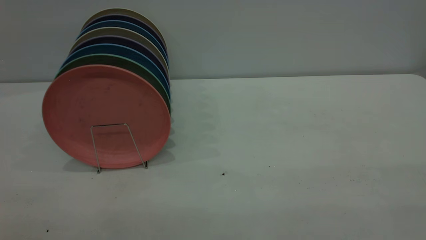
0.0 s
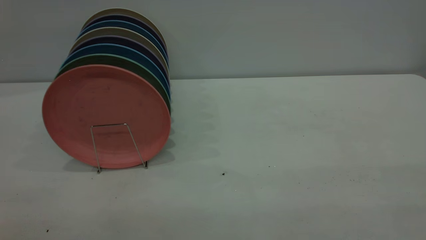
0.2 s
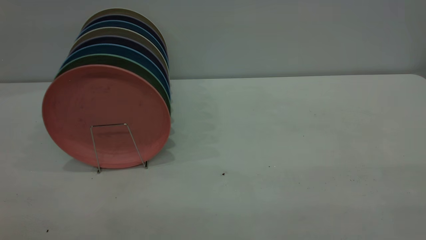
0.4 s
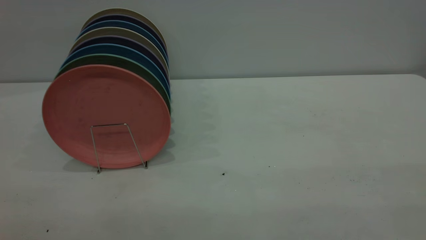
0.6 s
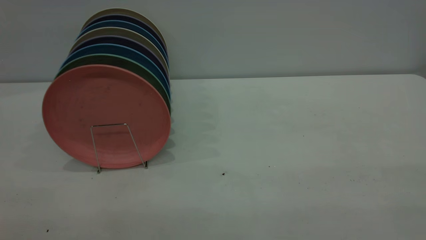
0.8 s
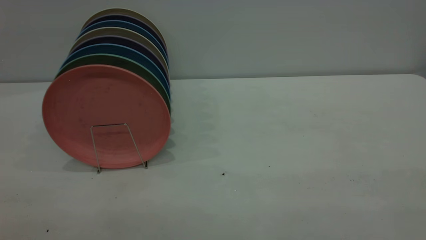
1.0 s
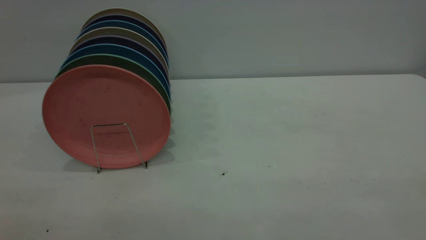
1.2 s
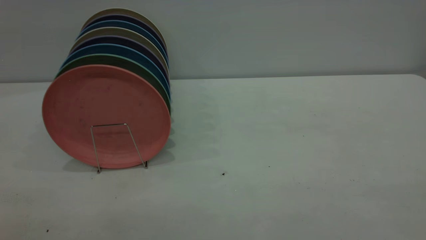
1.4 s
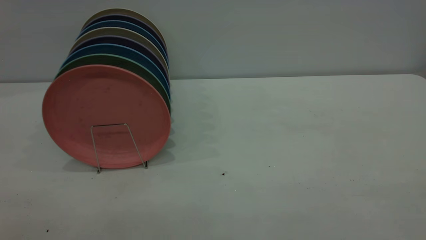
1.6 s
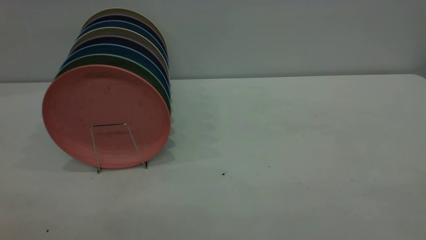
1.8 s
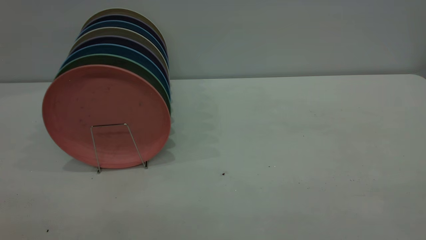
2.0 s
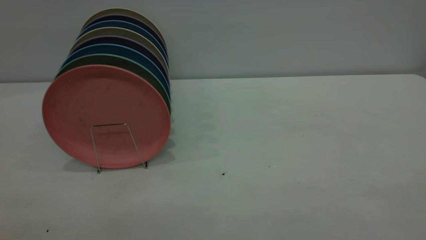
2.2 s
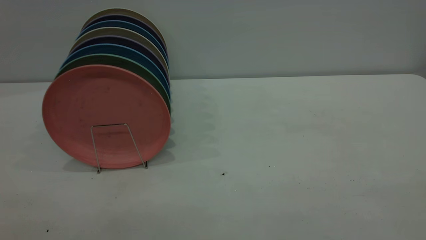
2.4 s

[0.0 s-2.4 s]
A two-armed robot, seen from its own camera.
Task of the whole recording: the right gripper grasp the pink plate, the right gripper pass the pink plate to the left gripper, and the left gripper place the pink plate on the plate rack.
1.2 to 2.4 s: The two grippers keep their place.

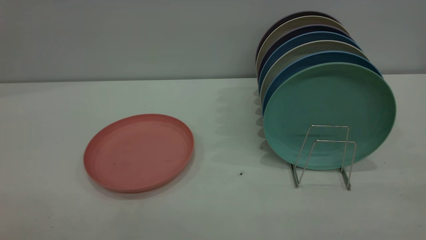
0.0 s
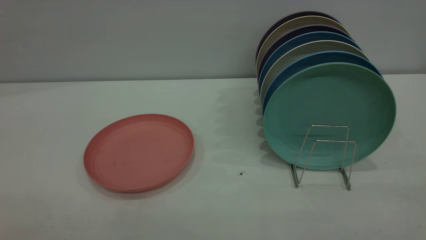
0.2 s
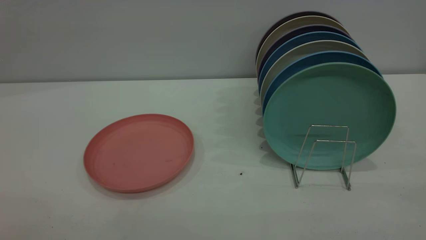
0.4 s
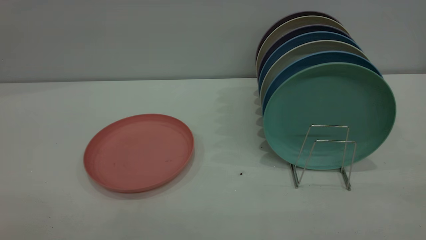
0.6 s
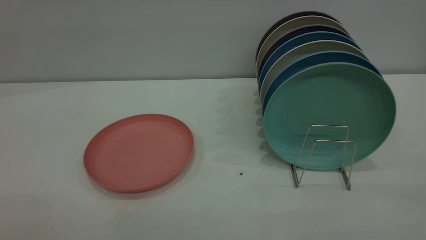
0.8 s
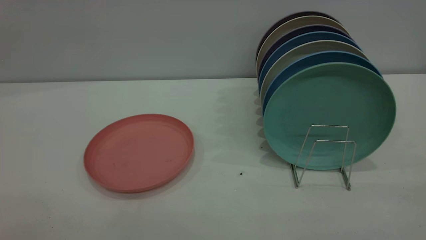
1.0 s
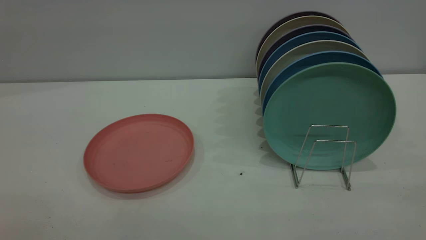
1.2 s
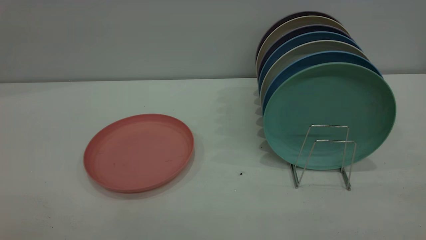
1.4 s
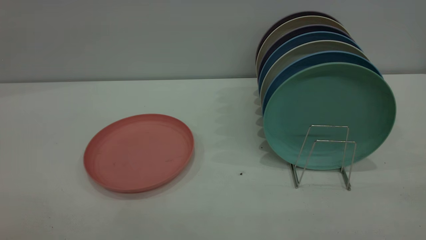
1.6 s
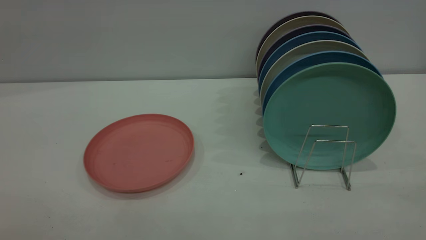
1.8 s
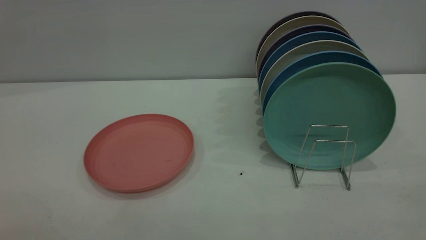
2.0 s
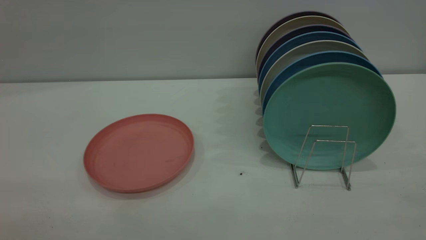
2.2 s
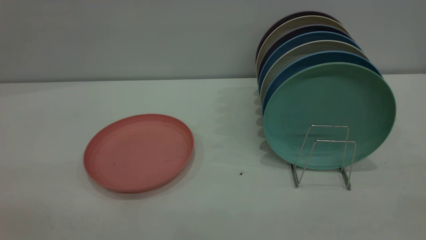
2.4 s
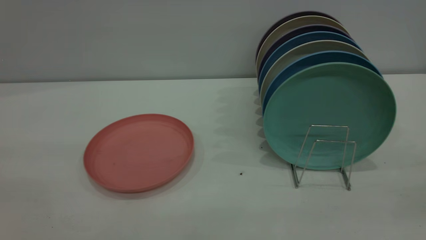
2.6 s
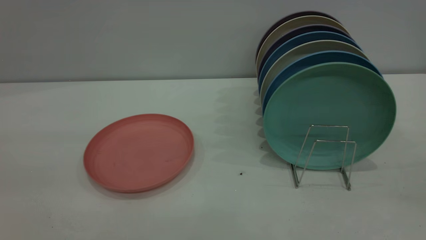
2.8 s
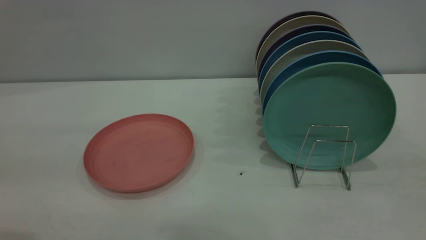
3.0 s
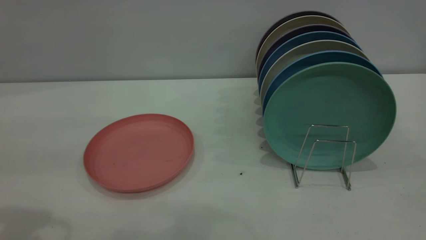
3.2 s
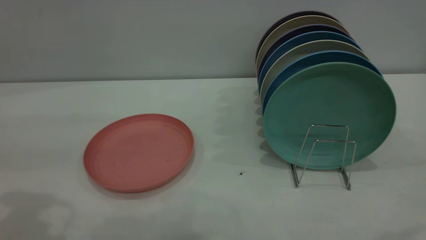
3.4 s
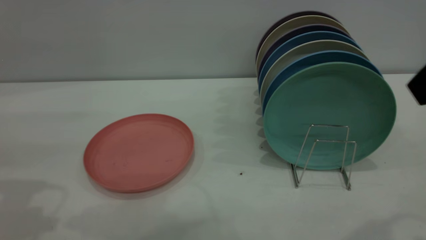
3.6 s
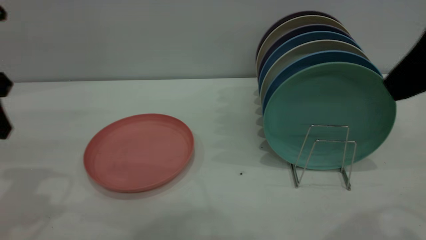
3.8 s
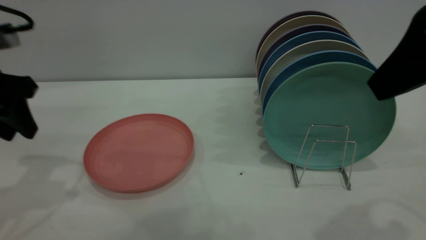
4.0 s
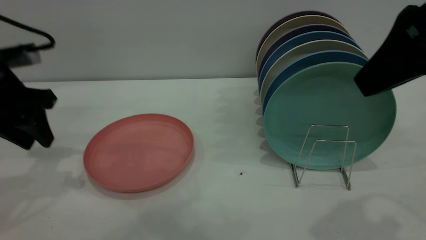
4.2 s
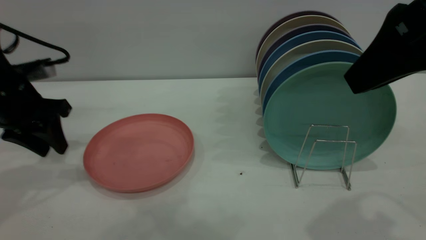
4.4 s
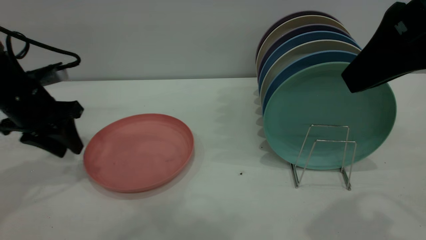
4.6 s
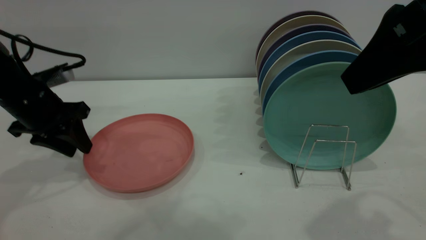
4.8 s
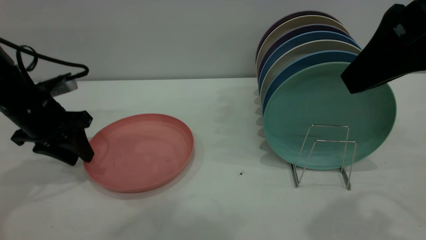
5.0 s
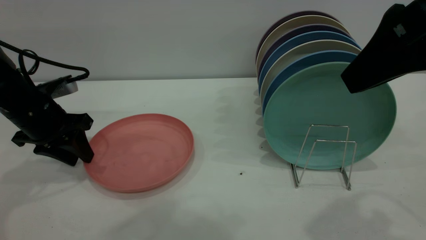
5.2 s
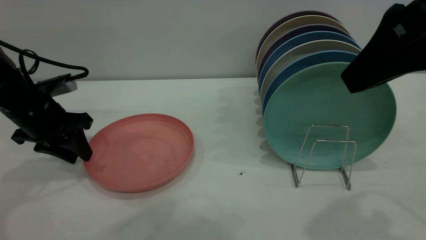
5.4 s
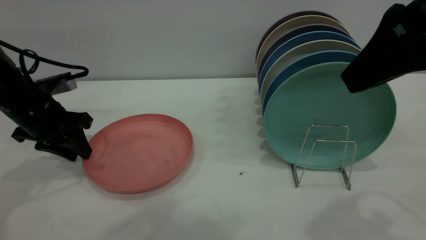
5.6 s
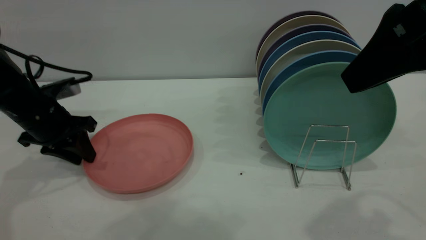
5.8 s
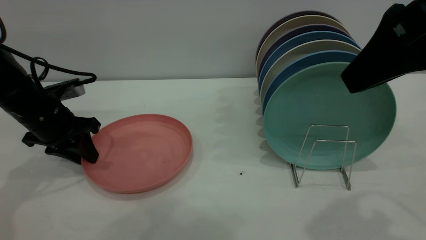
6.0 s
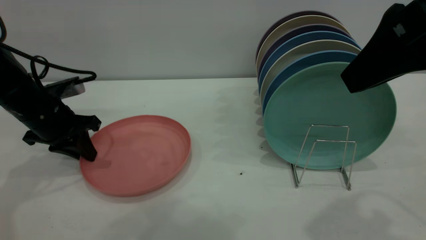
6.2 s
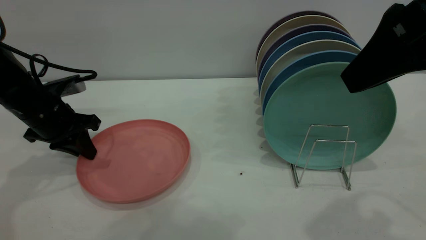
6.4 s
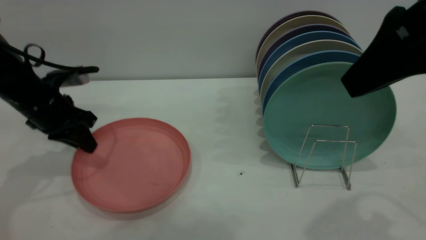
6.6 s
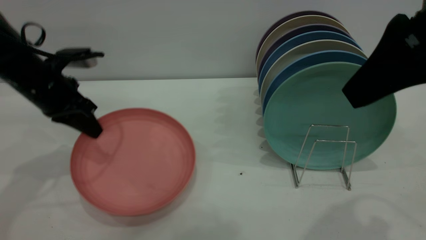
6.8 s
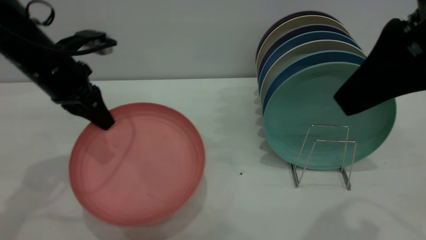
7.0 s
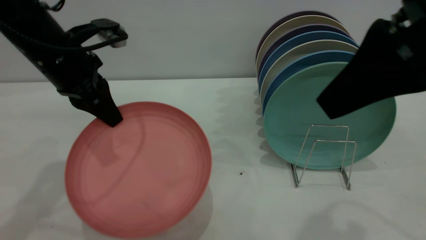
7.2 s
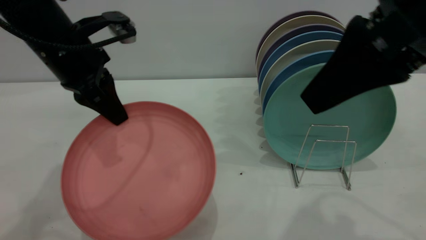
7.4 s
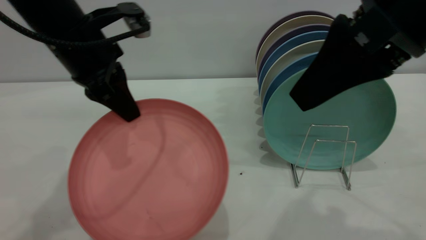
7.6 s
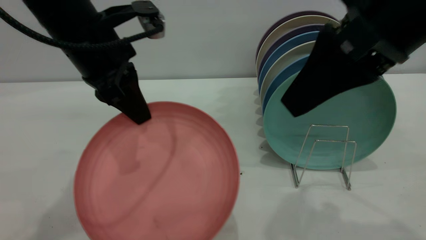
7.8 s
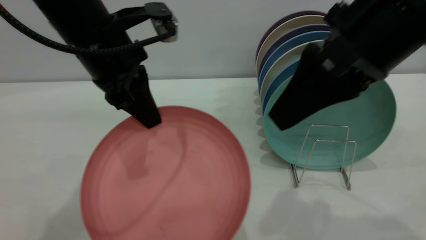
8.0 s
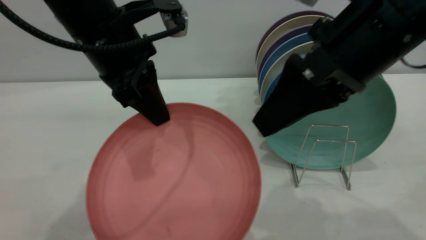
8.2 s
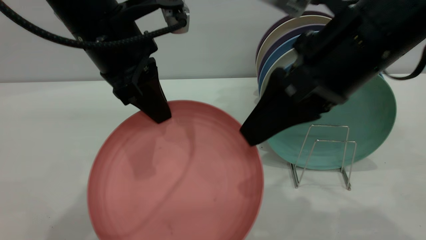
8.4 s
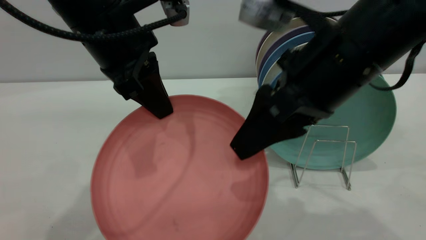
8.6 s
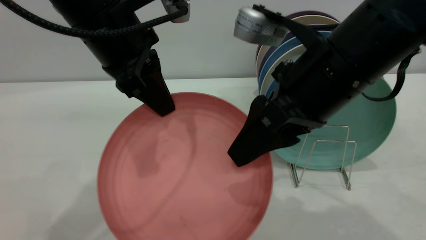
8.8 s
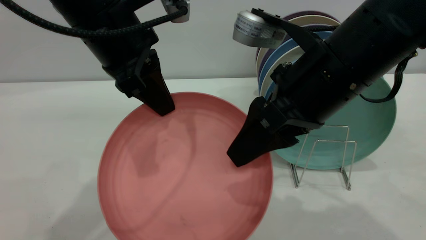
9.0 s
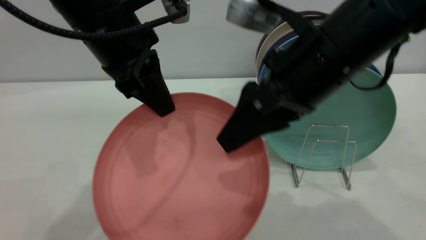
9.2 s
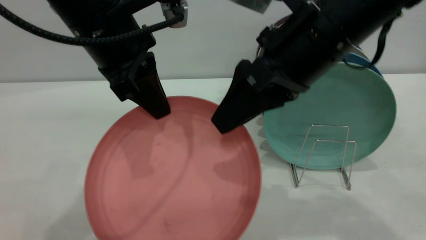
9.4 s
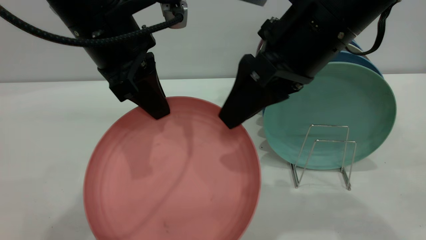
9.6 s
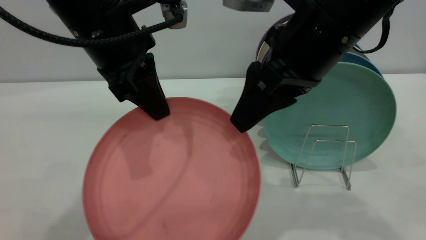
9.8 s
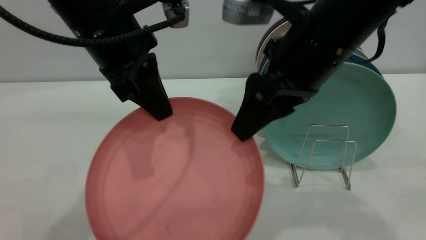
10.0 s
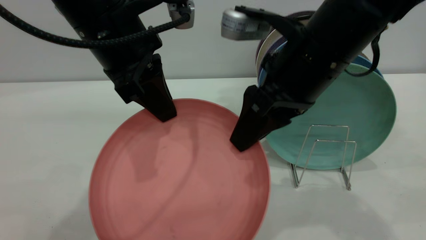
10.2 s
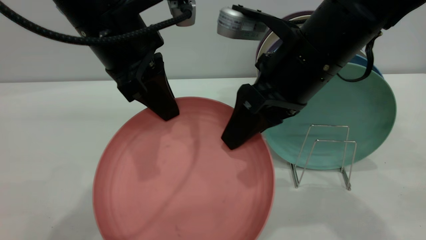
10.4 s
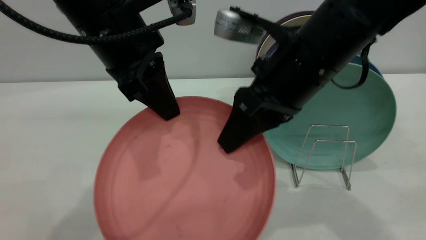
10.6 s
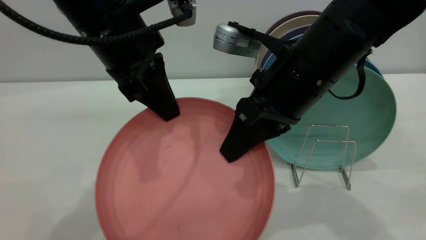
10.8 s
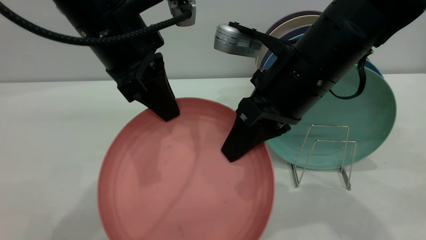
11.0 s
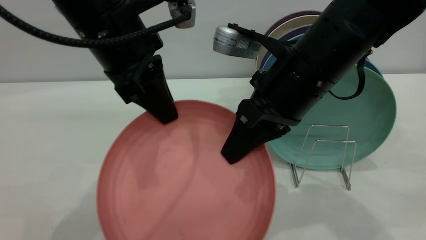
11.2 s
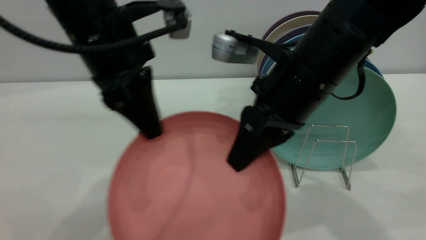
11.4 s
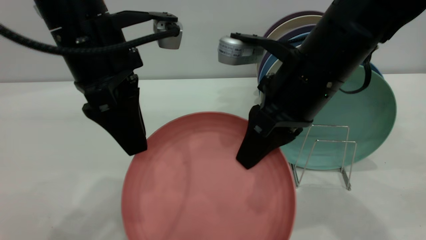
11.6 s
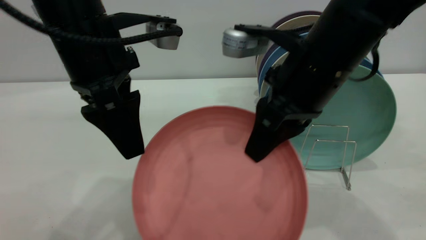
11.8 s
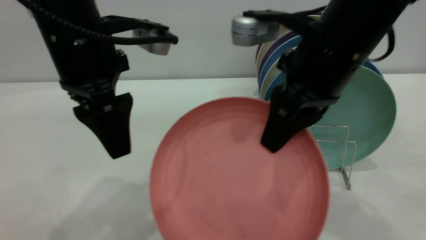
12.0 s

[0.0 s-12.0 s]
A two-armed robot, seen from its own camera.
Task of the whole recording: put the plate on the plate rack.
Step, 0.0 to 7.2 s: Pick up the plate with the left gripper.
Step, 7.4 to 12.0 s: Pass the plate from the left gripper to the right gripper.
3.0 to 4.4 s: The right gripper moves forward and to the left, roughly 10 cm, while the left gripper goes some 25 cm forward and downward.
4.4 to 6.0 s: The left gripper moves downward, some 5 cm.
6.0 to 7.6 s: The left gripper shifts roughly 20 cm upward and to the right, and closes.
7.6 to 9.0 s: The right gripper heads downward, covering about 10 cm; the left gripper moves approximately 5 cm.
9.0 to 10.4 s: There are only small adjustments of the grippers.
10.4 to 12.0 s: The right gripper closes. Meanwhile the left gripper opens up.

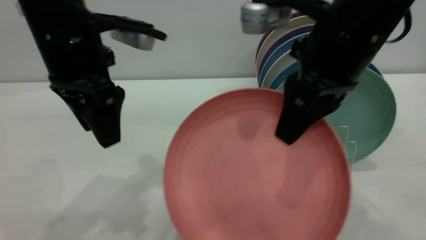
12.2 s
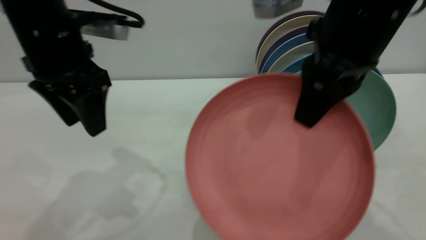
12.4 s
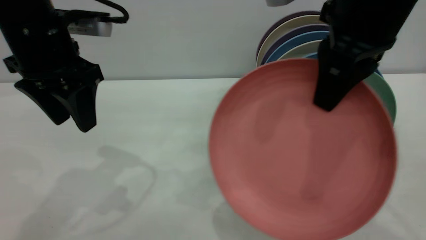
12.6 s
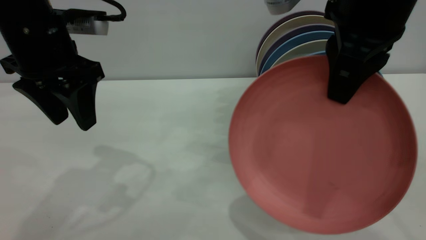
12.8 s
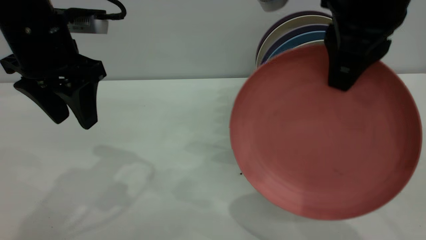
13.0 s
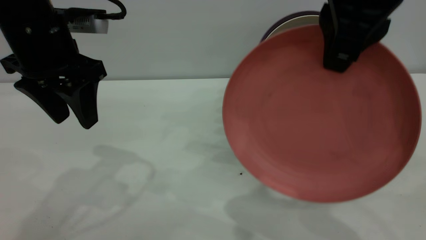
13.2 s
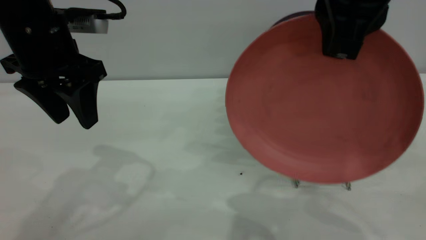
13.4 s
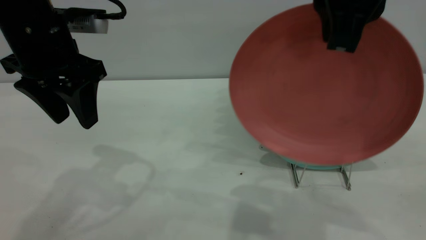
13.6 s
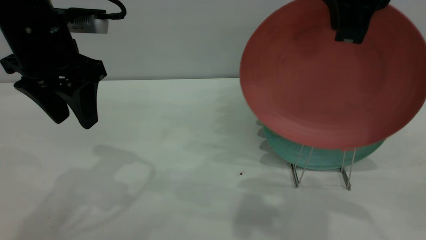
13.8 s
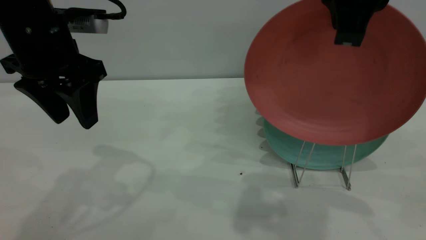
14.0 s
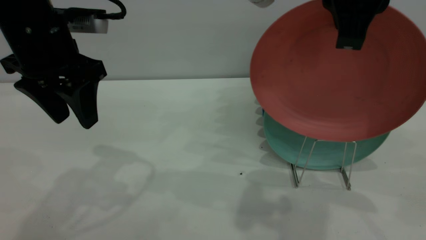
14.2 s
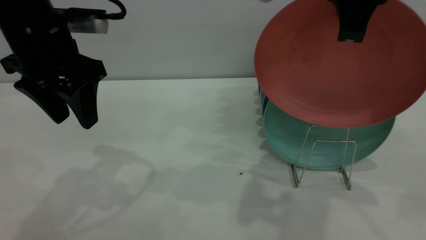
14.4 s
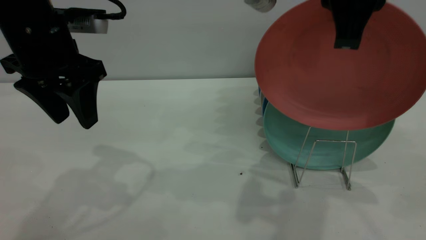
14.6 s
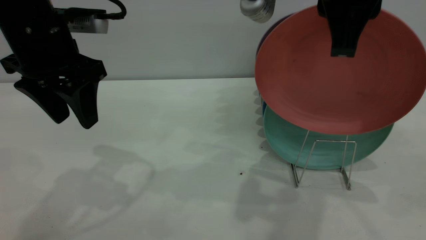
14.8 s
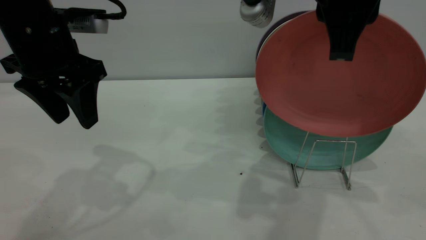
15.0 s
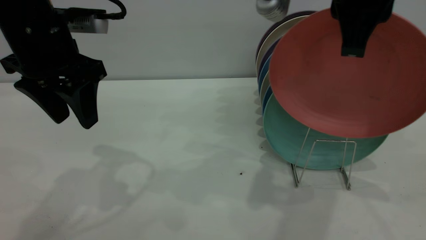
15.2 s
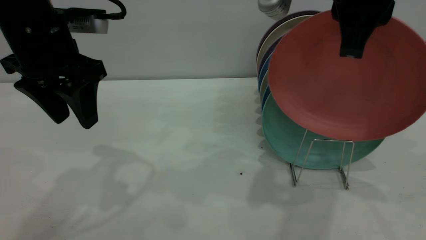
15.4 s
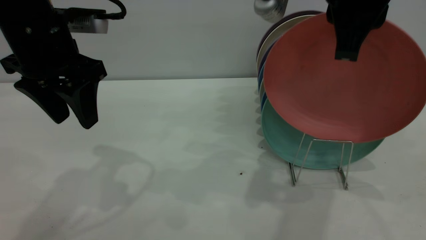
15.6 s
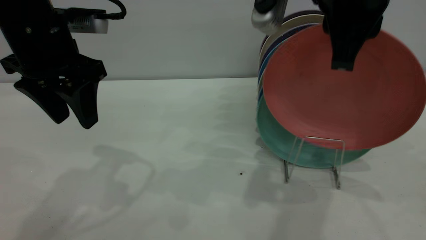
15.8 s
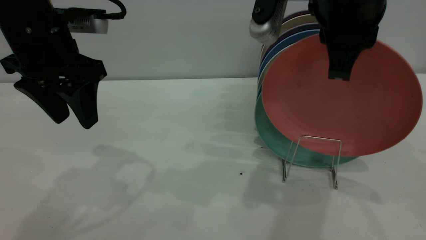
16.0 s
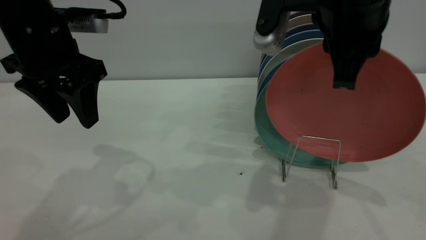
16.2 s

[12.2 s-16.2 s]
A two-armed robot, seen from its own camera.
Task of the whole recording: put the plate on the plate rack.
12.2 to 13.6 s: The right gripper heads upward, covering approximately 10 cm.
13.6 to 14.8 s: The grippers move only a little.
14.8 to 16.2 s: The grippers stay close to where they were, moving slightly.
